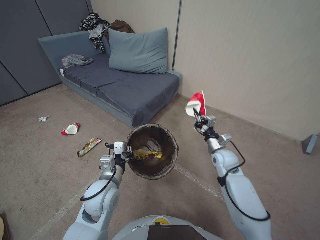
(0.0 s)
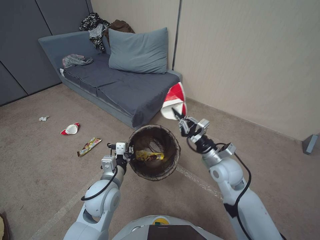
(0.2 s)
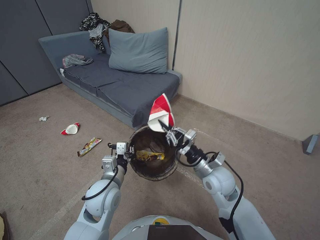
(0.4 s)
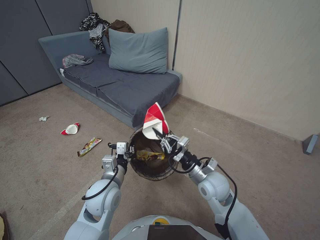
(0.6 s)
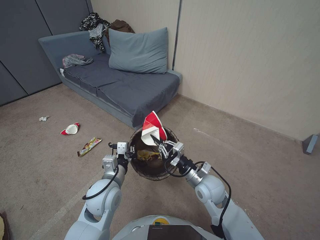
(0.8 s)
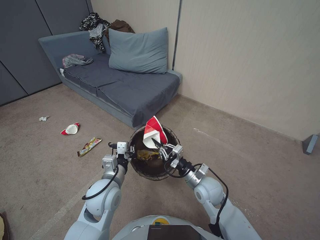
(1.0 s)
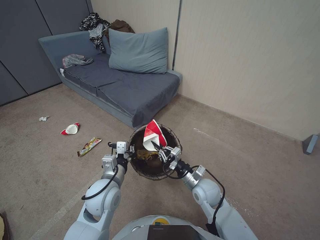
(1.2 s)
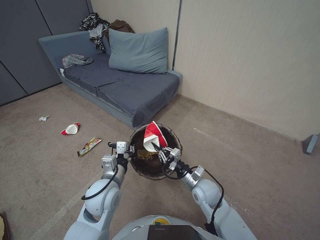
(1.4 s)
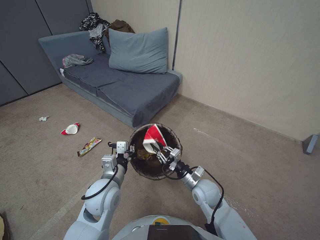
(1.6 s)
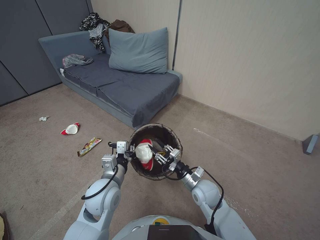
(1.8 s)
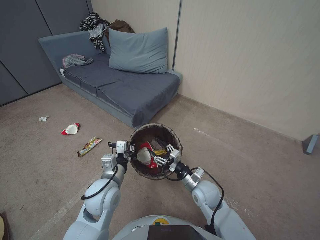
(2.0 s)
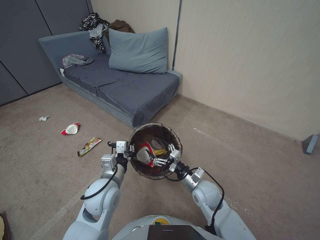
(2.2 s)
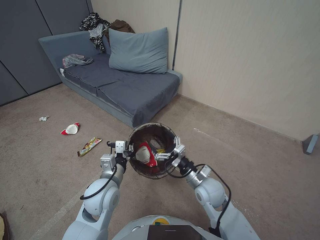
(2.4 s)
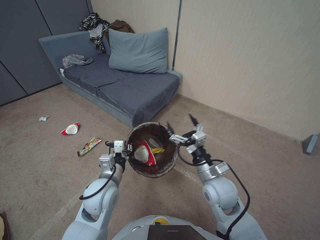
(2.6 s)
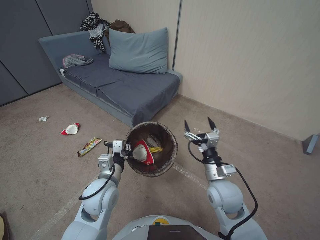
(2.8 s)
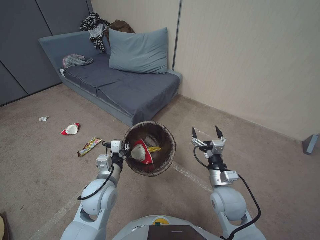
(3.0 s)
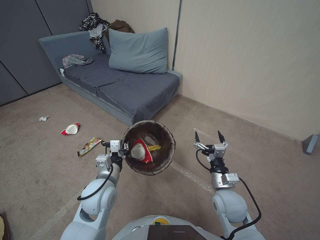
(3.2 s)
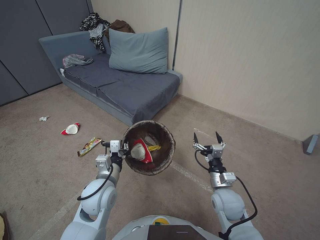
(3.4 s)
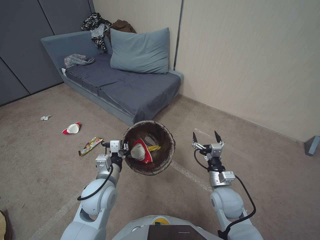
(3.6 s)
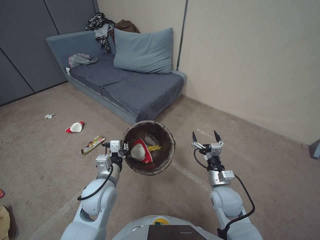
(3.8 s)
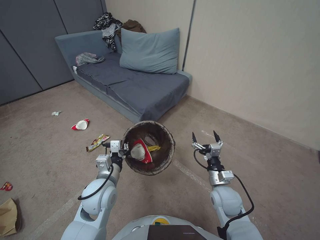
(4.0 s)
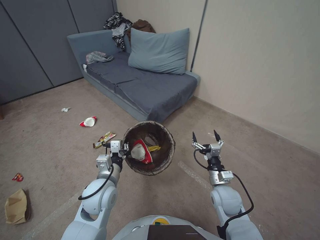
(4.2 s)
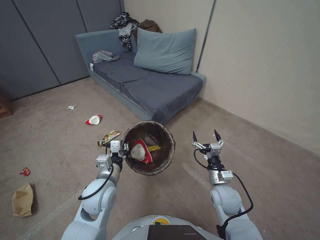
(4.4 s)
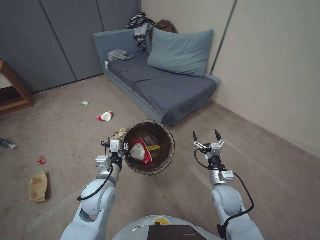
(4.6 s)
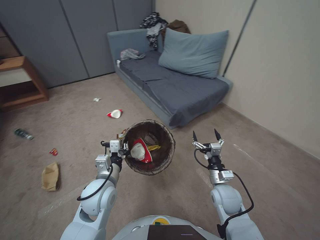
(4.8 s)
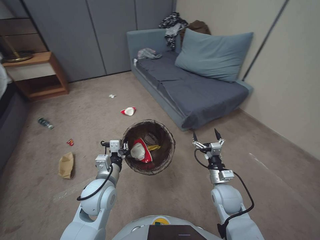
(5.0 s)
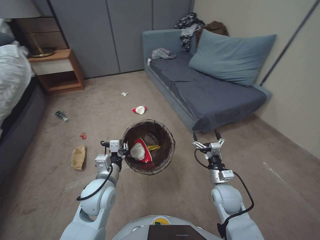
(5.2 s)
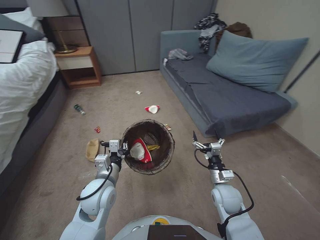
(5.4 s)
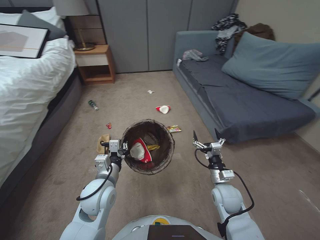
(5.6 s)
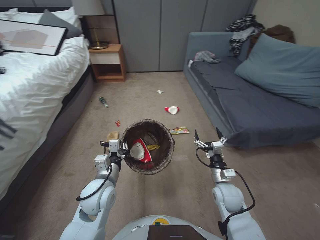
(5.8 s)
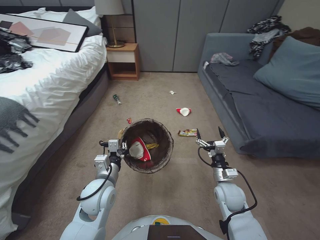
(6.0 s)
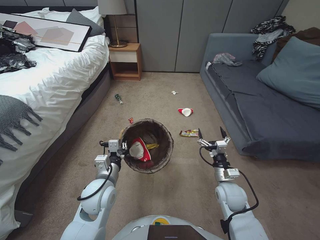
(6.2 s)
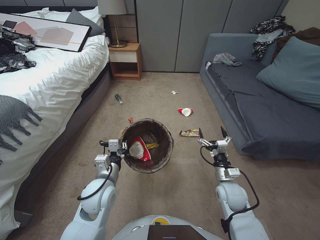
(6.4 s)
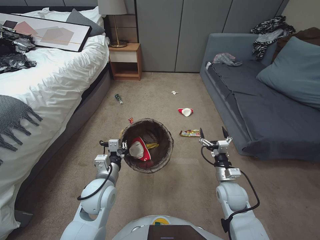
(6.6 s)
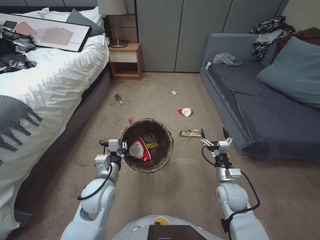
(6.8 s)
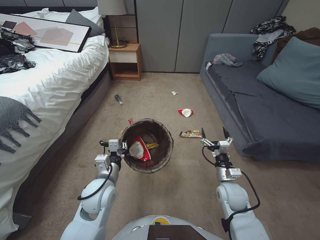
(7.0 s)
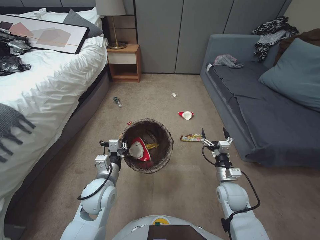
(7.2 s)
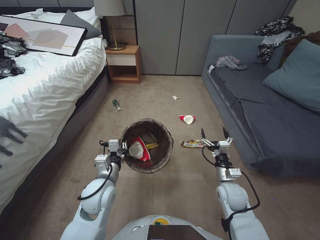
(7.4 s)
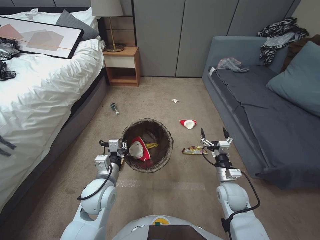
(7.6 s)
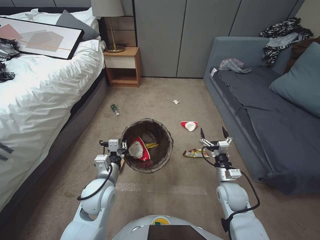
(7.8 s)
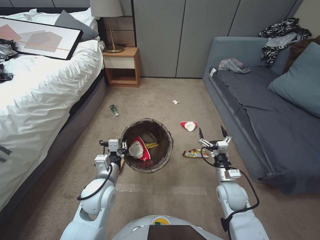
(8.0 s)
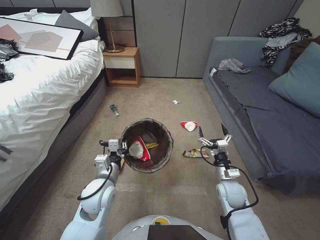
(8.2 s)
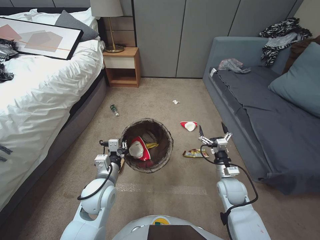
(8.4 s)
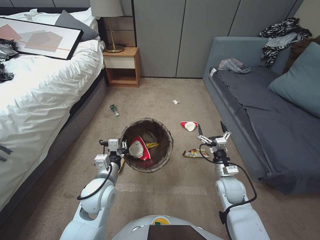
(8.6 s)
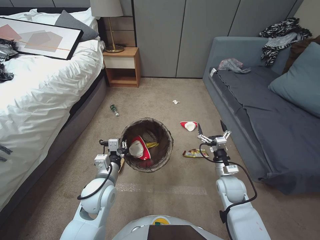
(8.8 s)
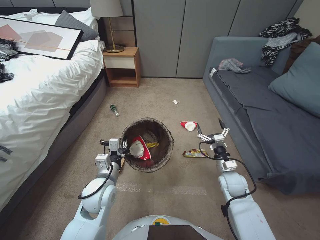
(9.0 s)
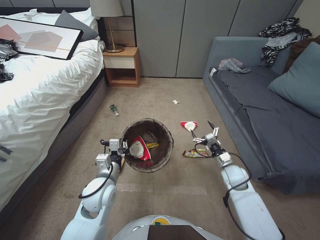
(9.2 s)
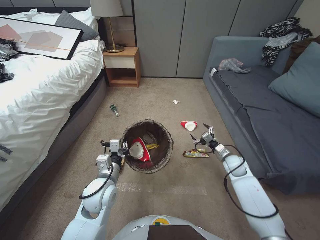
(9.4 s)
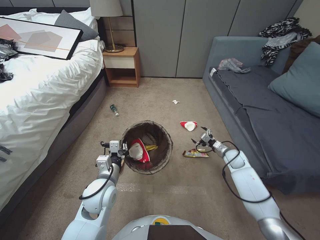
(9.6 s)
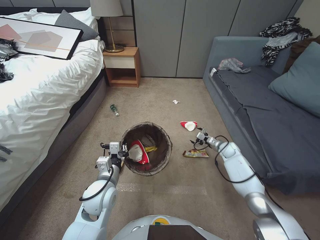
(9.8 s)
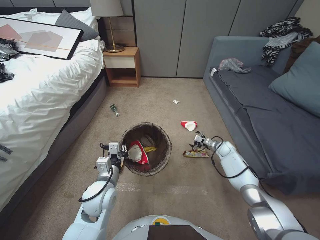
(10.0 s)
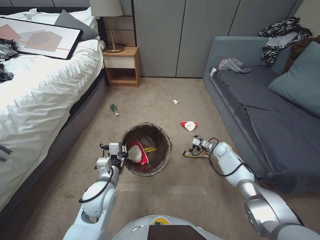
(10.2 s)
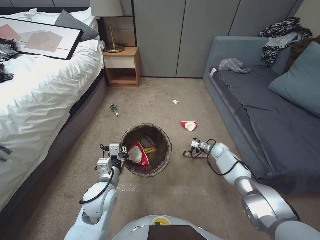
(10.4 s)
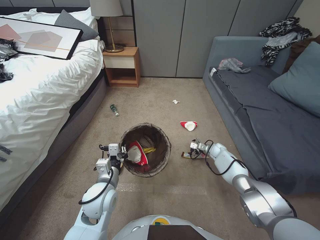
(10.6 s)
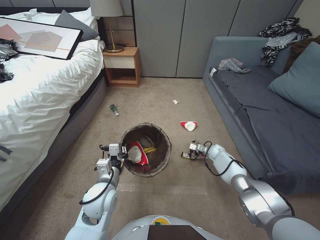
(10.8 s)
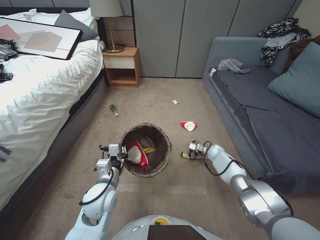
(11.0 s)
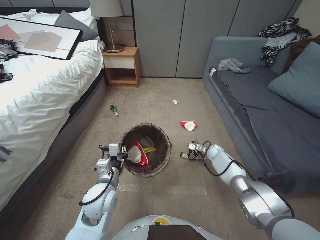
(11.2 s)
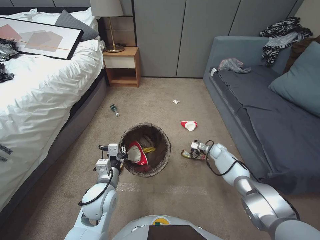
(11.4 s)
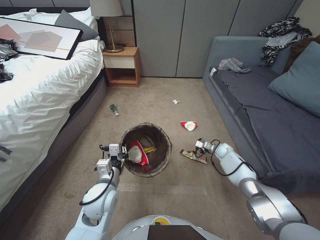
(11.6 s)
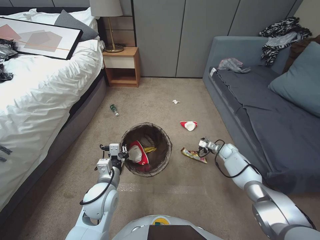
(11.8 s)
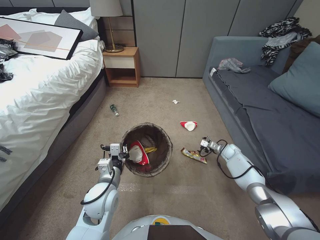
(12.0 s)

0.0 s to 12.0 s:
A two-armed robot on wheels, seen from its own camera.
Task of the whole recording: Pick up the trash bin, then pick up the garbage from the floor and place it into the trash bin.
0.0 to 1.6 s: The right gripper moves backward and to the left, approximately 15 cm.
1.6 to 3.0 s: The right gripper travels upward by about 10 cm, and opens its fingers.
3.0 to 4.4 s: The right gripper heads downward, covering about 5 cm.
7.6 to 9.0 s: The grippers stay close to where they were, moving slightly.
9.0 to 10.4 s: The right gripper goes roughly 25 cm forward and downward.
10.4 to 12.0 s: The grippers stay close to where they were, moving slightly.

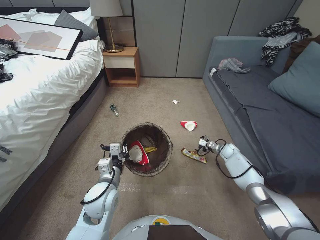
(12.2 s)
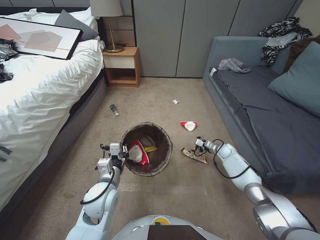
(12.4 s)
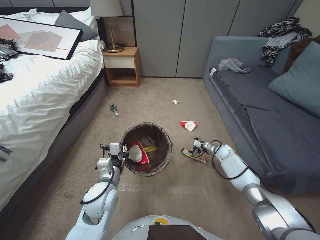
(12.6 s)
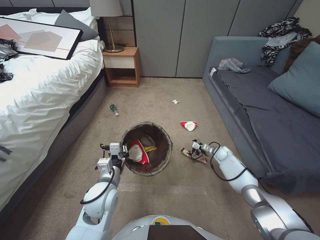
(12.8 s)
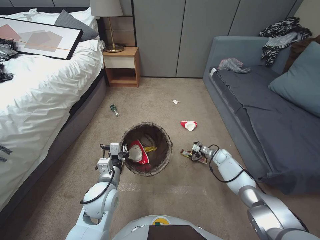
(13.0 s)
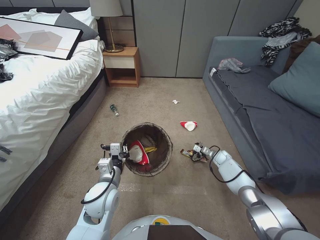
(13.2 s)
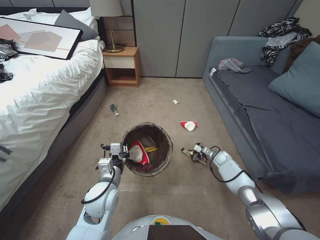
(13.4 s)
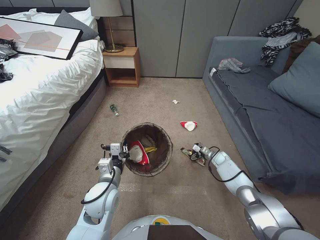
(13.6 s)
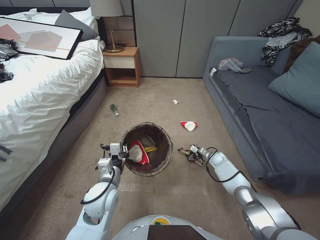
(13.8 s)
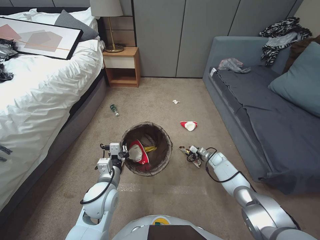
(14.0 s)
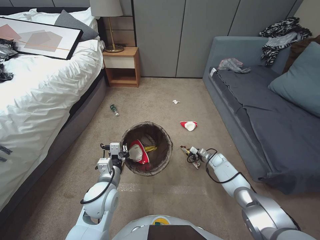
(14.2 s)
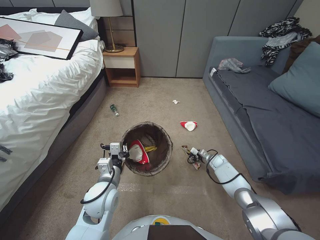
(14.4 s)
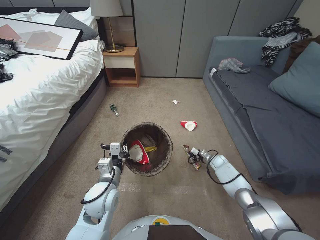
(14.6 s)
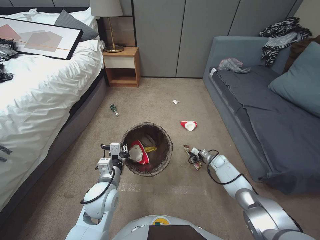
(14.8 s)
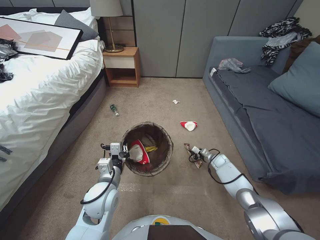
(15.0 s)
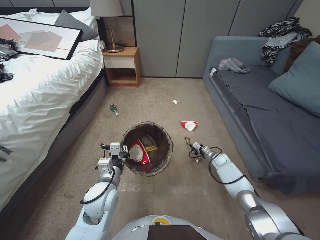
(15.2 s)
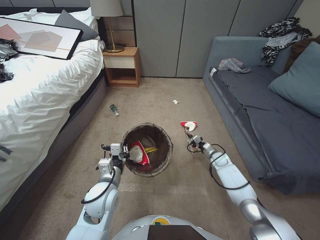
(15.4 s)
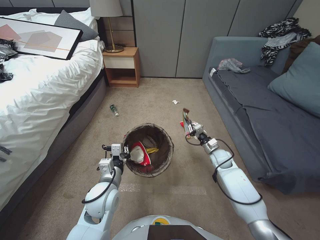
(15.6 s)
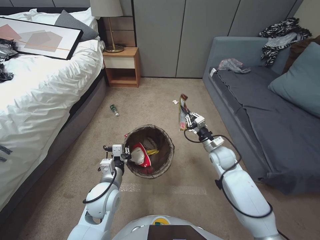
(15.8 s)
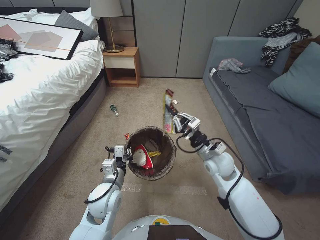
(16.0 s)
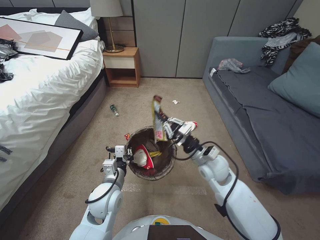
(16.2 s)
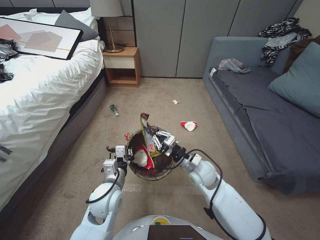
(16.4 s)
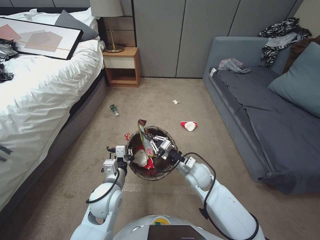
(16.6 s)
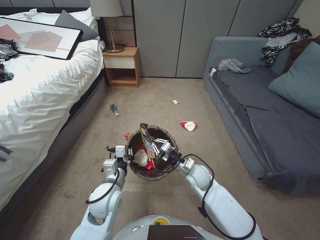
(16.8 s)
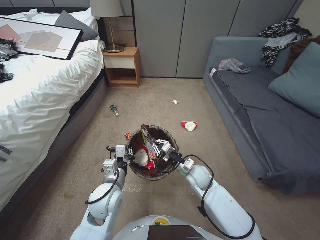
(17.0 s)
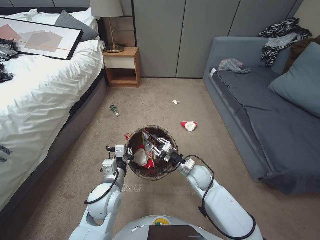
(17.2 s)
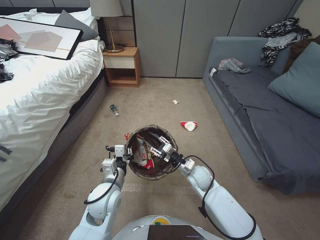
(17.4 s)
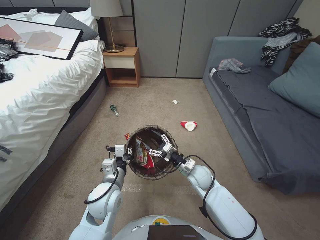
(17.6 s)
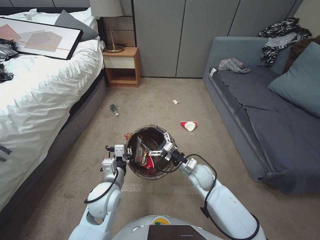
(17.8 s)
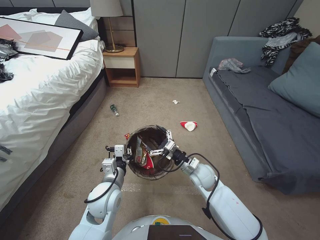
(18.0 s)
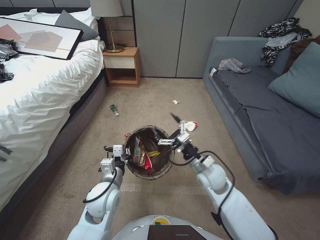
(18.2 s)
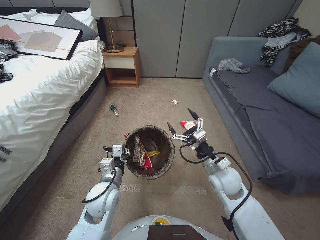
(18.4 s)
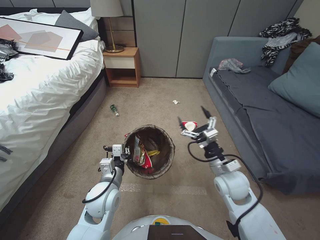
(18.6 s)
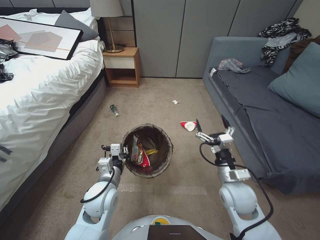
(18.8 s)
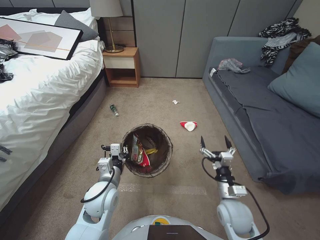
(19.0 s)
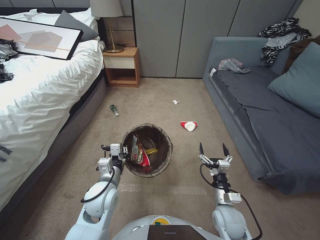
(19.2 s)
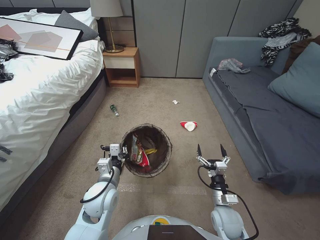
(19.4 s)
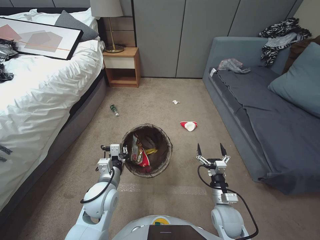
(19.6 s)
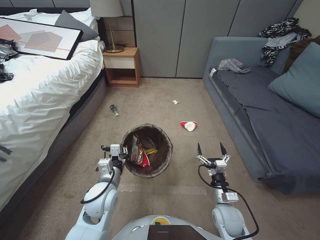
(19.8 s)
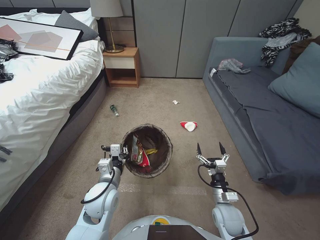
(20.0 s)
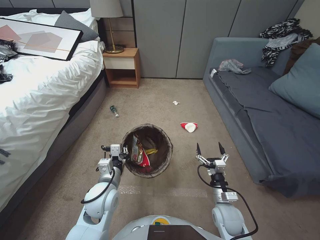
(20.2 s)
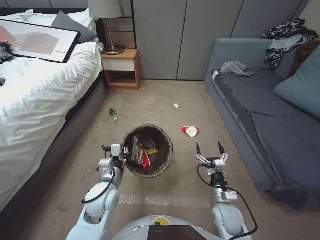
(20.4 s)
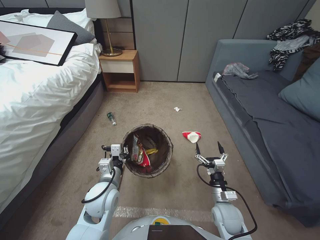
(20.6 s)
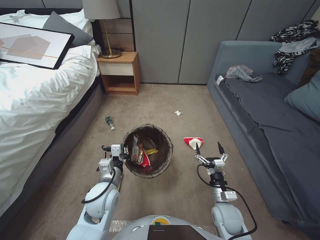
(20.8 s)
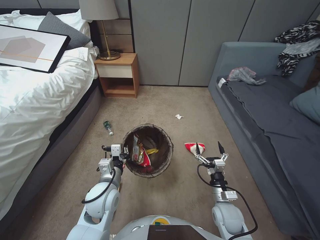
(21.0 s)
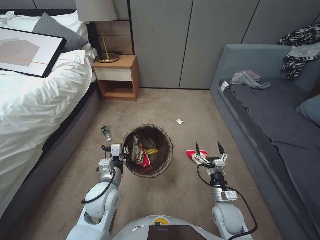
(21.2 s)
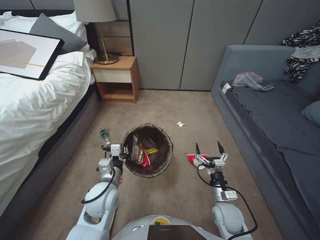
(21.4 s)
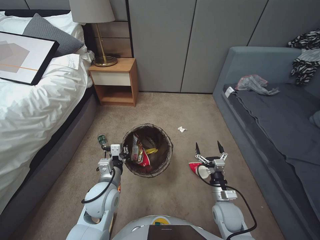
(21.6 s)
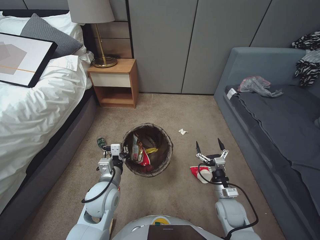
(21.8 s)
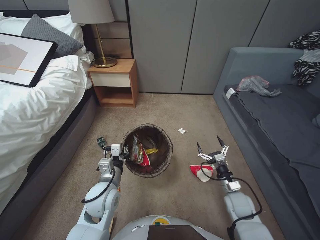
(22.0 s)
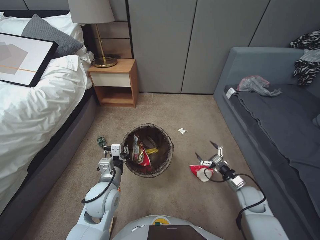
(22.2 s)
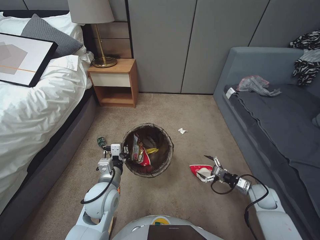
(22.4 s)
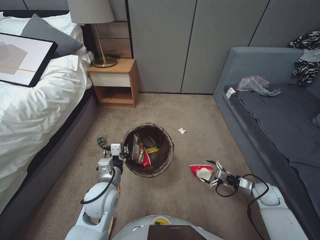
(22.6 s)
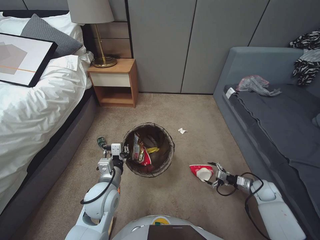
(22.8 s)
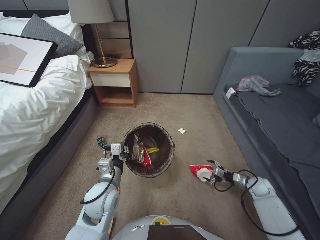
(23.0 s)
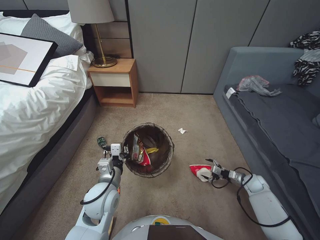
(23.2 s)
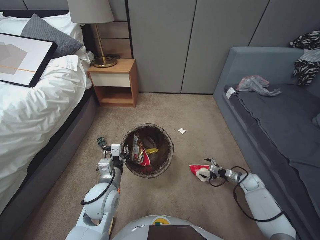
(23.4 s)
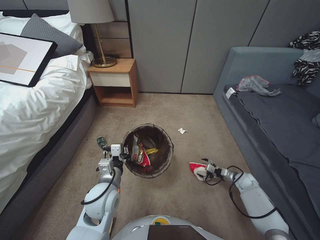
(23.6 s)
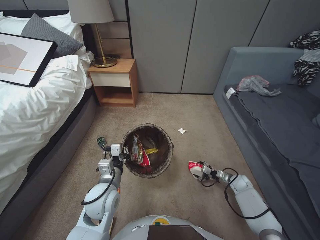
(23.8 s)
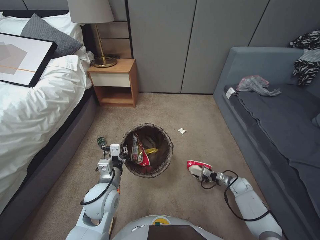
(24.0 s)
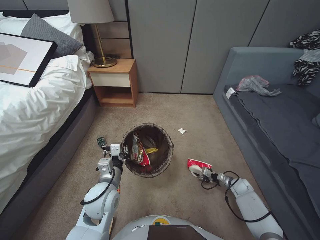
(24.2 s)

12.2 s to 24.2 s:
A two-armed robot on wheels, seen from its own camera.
Task of the whole recording: Pick up the trash bin, then pick up the garbage from the floor and place it into the trash bin.
12.2 to 13.8 s: The right gripper moves downward and to the left, some 10 cm.
13.8 to 15.2 s: The right gripper closes its fingers.
15.2 to 16.6 s: The right gripper is displaced to the left, upward and backward by roughly 30 cm.
16.6 to 18.2 s: The right gripper opens up.
18.2 to 19.8 s: The right gripper heads backward, downward and to the right, covering approximately 15 cm.
21.2 to 22.6 s: The right gripper heads to the right, covering roughly 20 cm.
22.6 to 24.2 s: The right gripper travels downward and forward by approximately 15 cm, and closes up.
